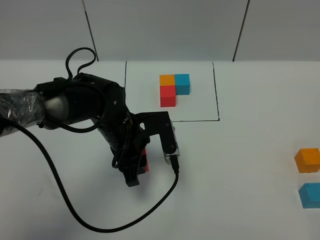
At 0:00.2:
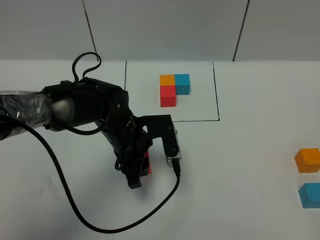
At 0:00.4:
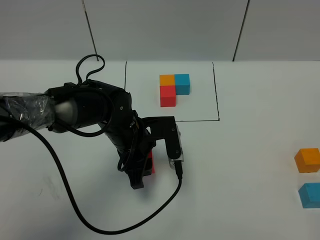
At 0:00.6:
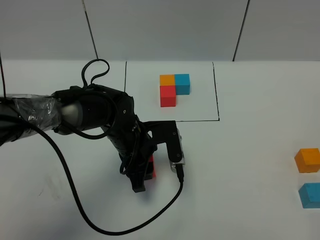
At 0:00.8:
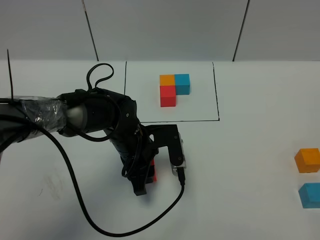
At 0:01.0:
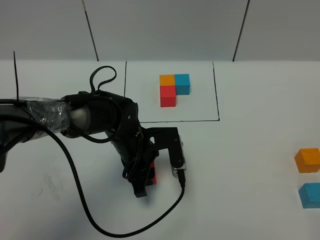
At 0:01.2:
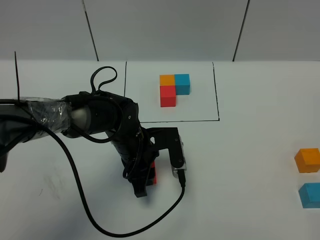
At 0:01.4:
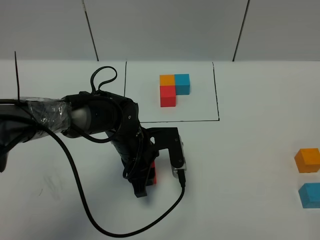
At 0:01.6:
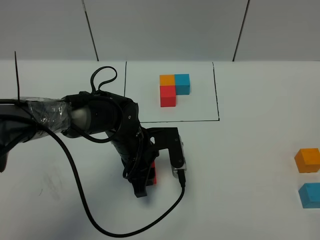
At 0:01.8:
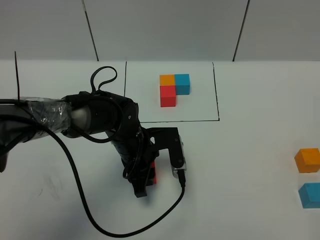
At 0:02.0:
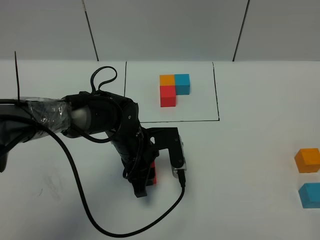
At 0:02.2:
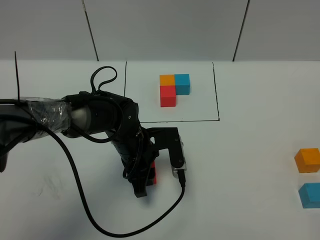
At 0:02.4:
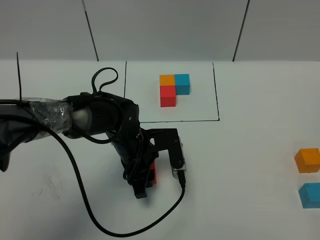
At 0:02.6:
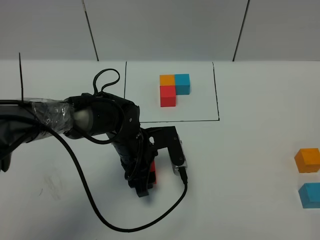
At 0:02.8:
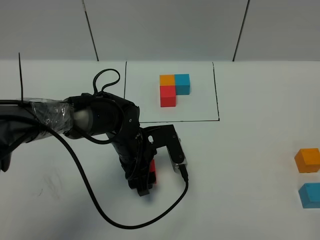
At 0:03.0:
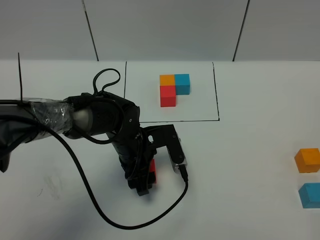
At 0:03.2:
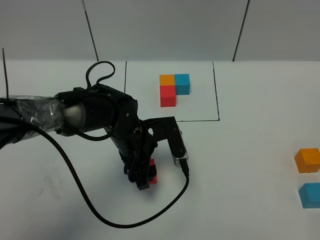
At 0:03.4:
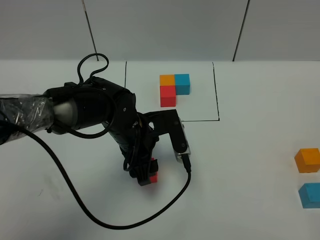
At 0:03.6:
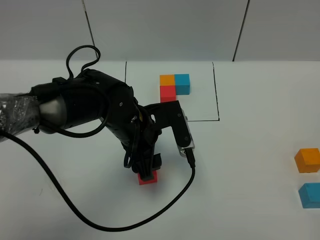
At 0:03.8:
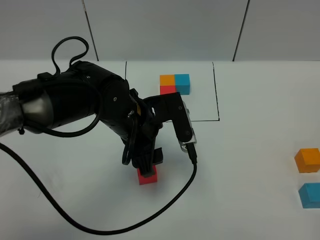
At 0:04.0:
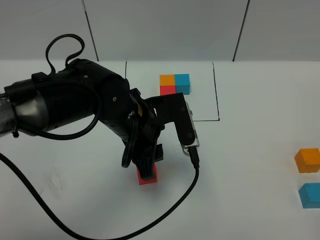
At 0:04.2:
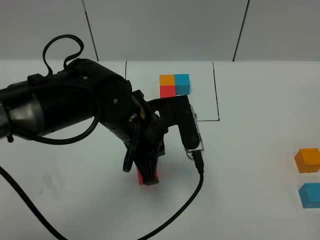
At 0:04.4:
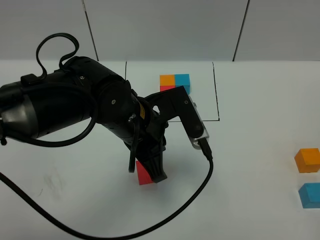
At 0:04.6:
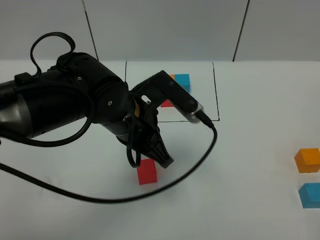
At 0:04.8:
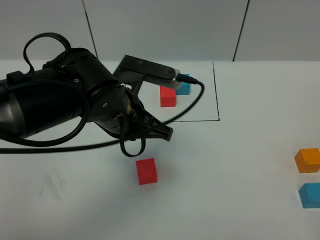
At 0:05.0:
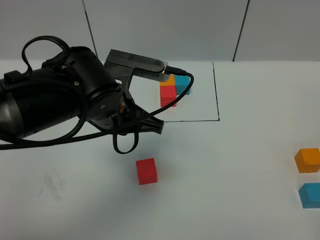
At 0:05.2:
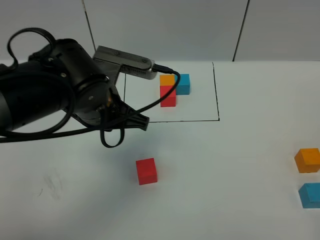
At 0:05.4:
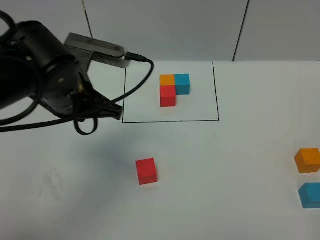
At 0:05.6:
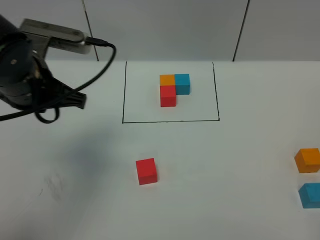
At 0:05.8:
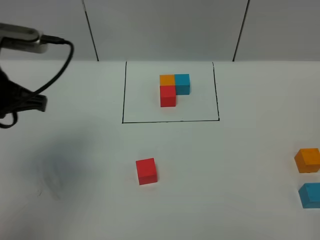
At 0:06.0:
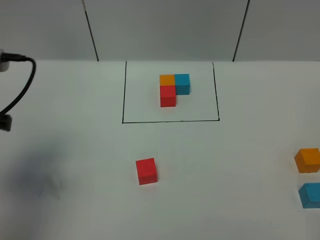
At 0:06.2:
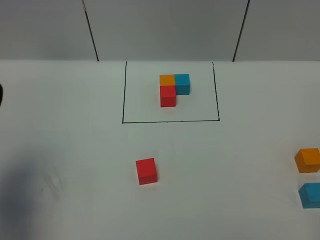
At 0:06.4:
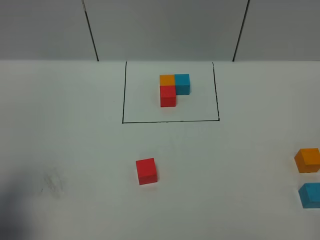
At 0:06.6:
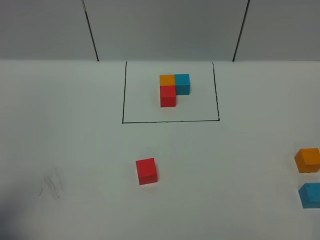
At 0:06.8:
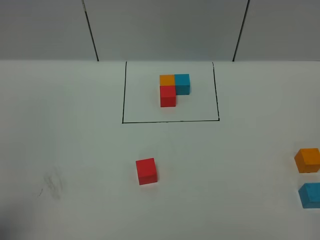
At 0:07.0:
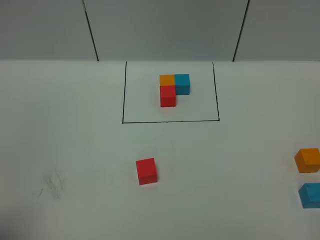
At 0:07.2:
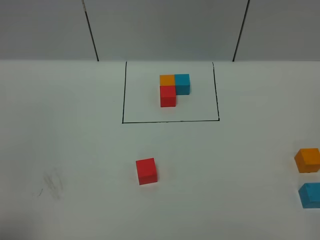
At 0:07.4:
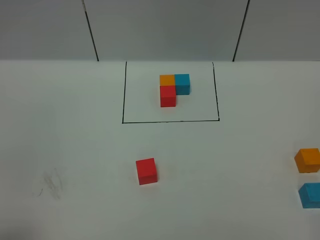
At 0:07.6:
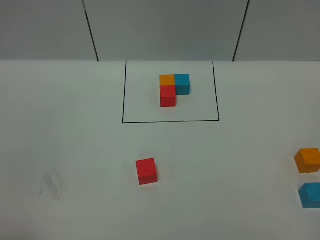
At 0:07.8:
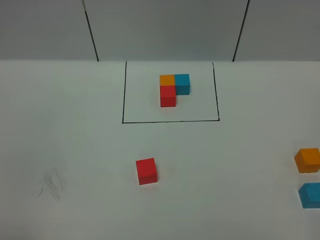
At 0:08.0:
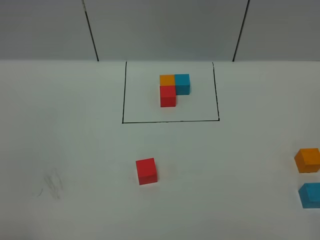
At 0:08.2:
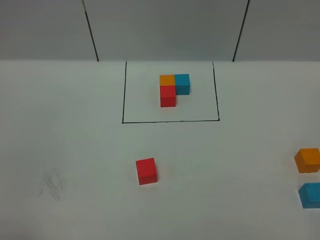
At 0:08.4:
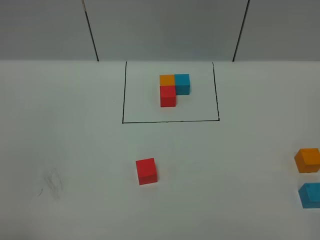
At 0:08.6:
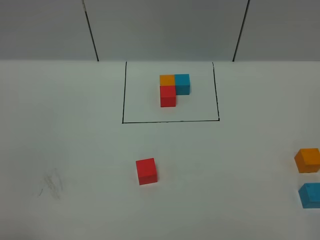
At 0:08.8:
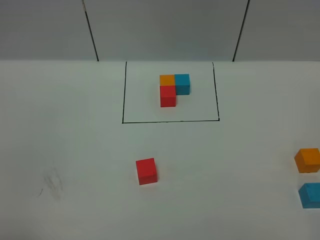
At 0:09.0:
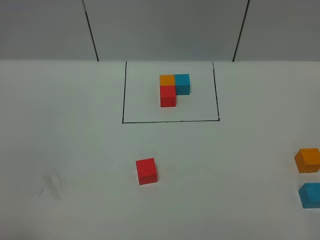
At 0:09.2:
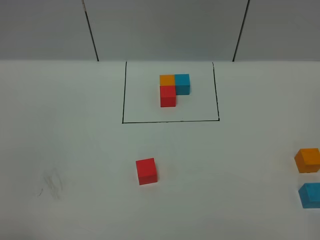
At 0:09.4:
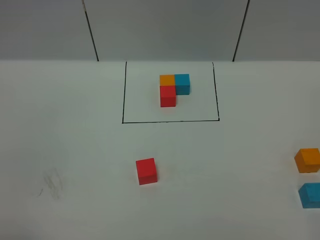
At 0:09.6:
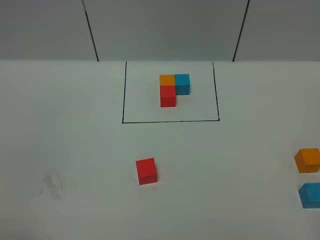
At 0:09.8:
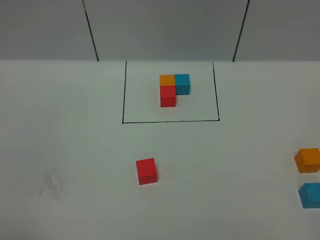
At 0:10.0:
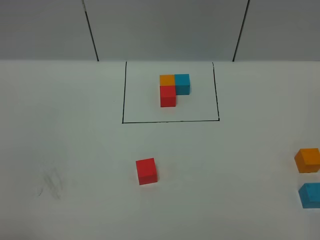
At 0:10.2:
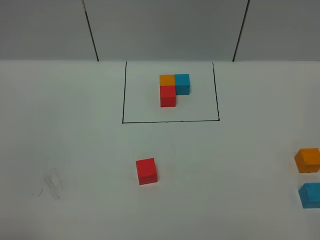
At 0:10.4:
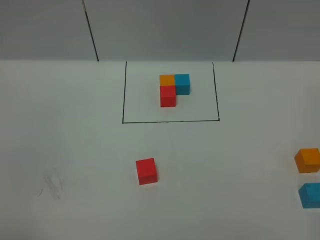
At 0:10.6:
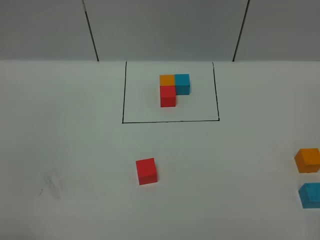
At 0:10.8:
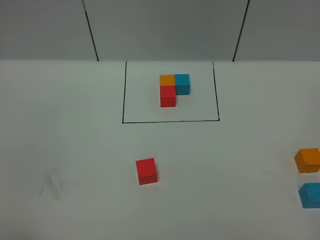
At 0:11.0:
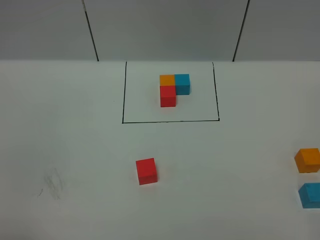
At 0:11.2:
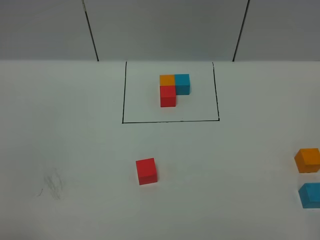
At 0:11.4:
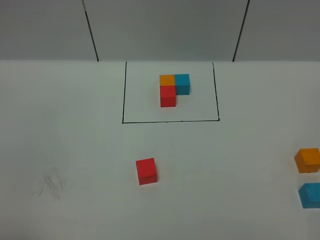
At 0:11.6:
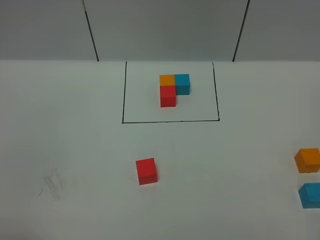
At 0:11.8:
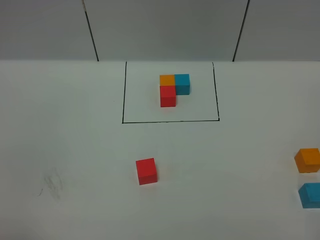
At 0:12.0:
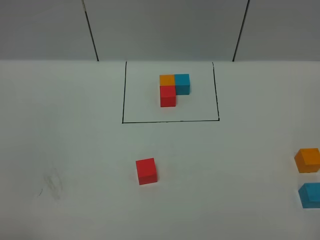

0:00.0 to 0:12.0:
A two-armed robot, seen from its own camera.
Task of the whole recording: According to the building block template in front, assemble the scattered blocks together.
Step, 0:00.0 to 0:03.6: Put the red cube in the center of the table.
0:00.0 to 0:03.0: The grippers stay close to where they were, moving slightly.
0:03.0 to 0:04.4: The left gripper is displaced upward by approximately 15 cm, and closes.
0:04.4 to 0:06.0: The left gripper heads to the left, covering about 25 cm.
0:06.0 to 0:07.6: The left gripper heads backward, covering roughly 20 cm.
0:09.0 to 0:10.4: Both grippers stay about where they are.

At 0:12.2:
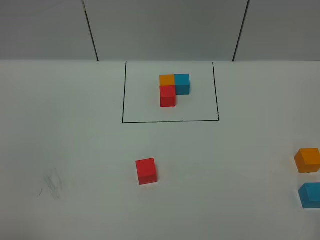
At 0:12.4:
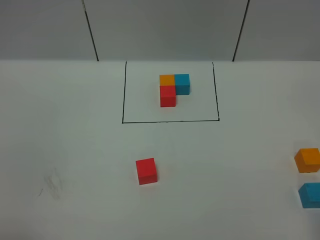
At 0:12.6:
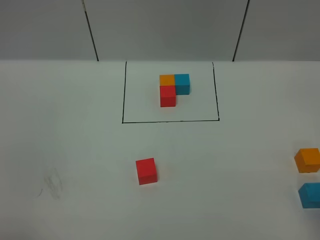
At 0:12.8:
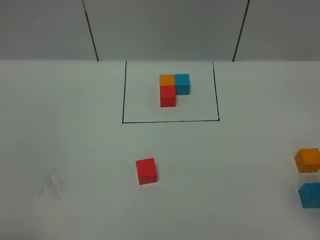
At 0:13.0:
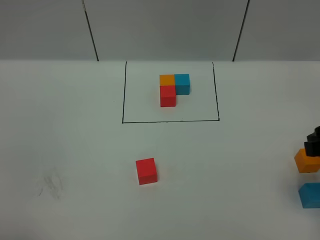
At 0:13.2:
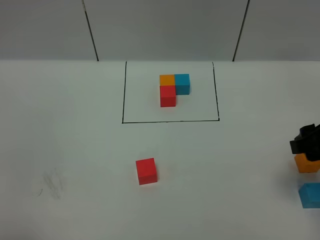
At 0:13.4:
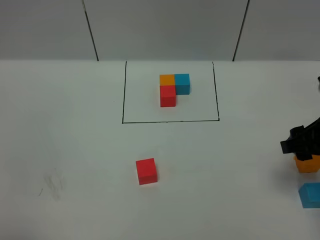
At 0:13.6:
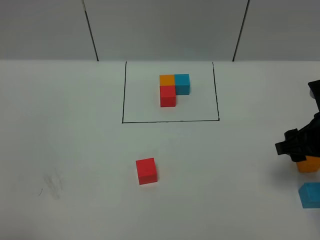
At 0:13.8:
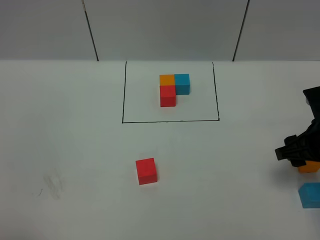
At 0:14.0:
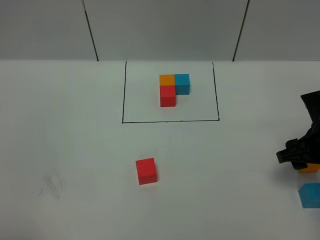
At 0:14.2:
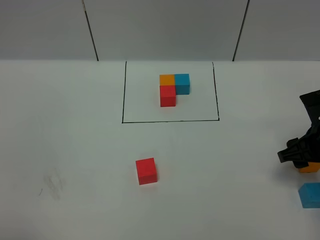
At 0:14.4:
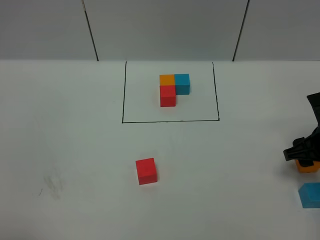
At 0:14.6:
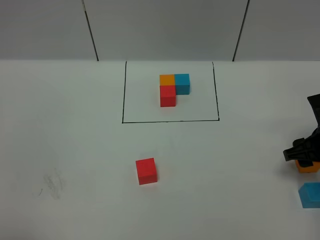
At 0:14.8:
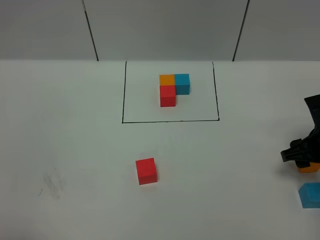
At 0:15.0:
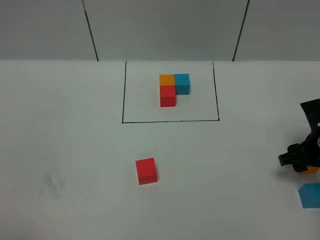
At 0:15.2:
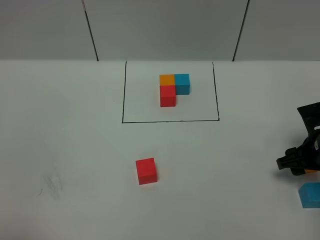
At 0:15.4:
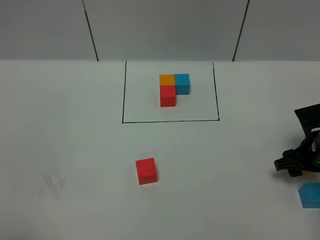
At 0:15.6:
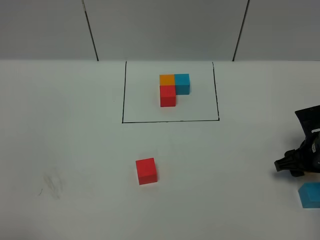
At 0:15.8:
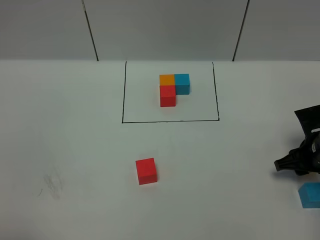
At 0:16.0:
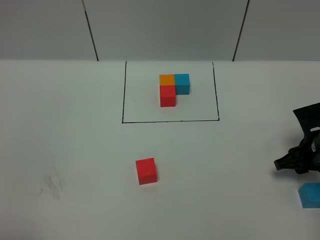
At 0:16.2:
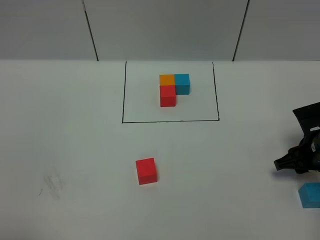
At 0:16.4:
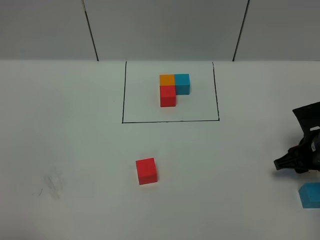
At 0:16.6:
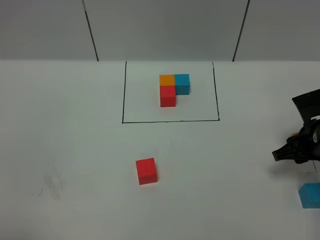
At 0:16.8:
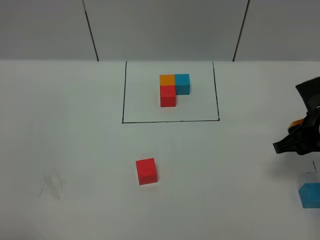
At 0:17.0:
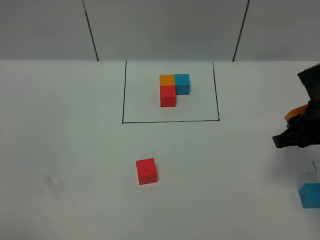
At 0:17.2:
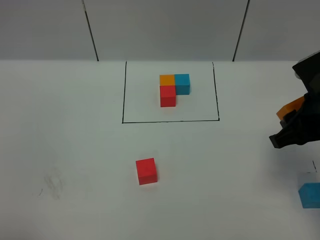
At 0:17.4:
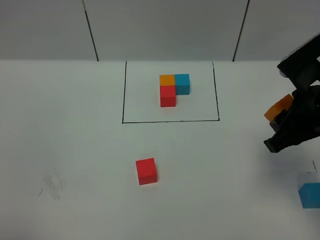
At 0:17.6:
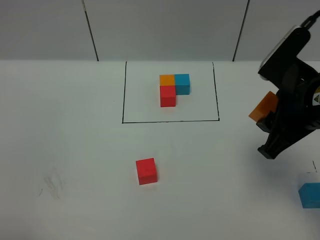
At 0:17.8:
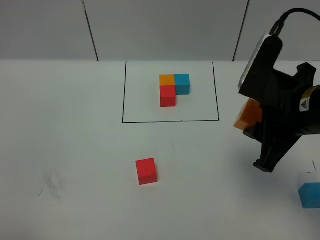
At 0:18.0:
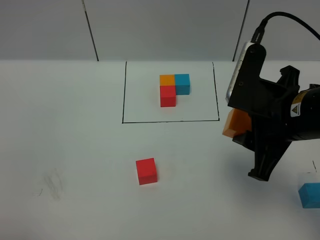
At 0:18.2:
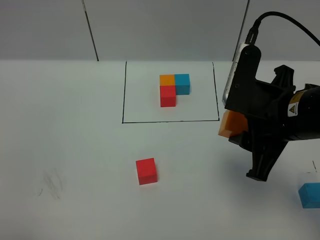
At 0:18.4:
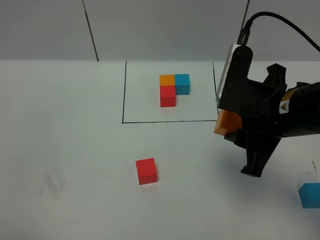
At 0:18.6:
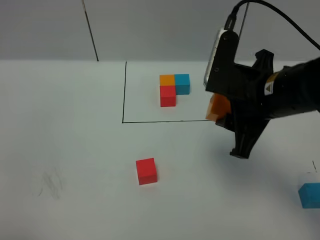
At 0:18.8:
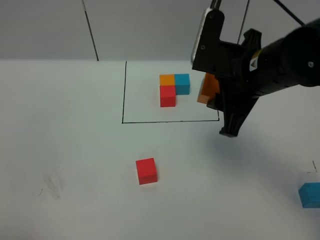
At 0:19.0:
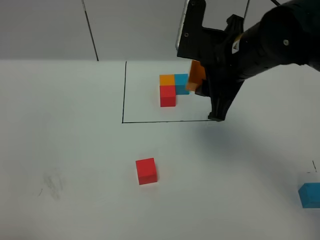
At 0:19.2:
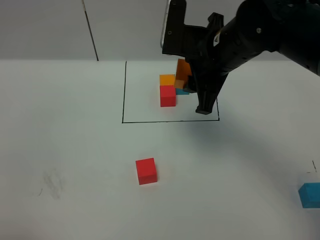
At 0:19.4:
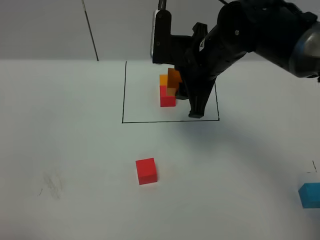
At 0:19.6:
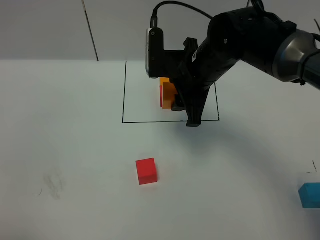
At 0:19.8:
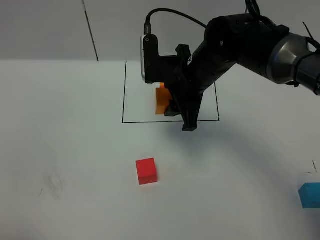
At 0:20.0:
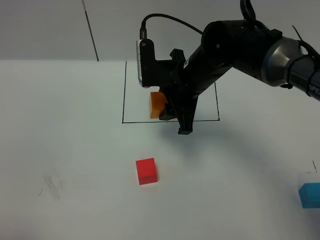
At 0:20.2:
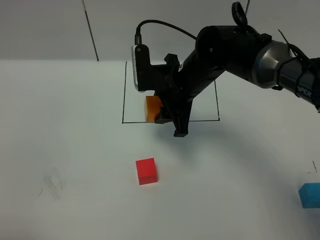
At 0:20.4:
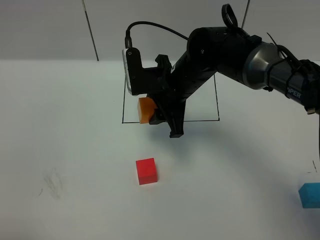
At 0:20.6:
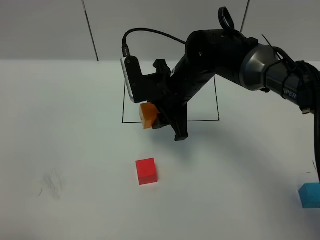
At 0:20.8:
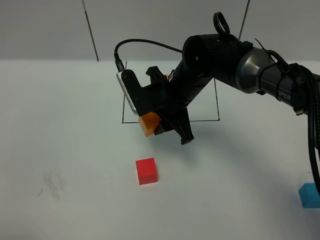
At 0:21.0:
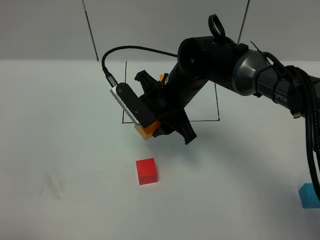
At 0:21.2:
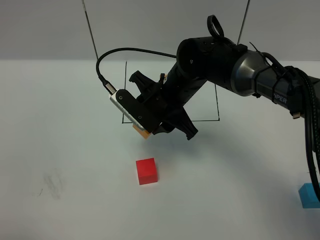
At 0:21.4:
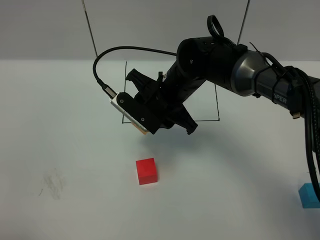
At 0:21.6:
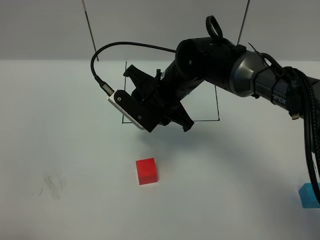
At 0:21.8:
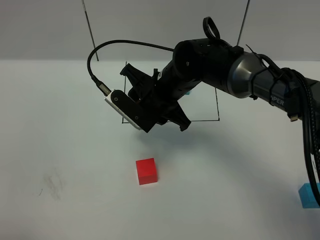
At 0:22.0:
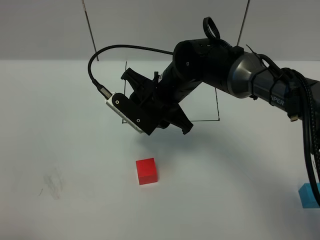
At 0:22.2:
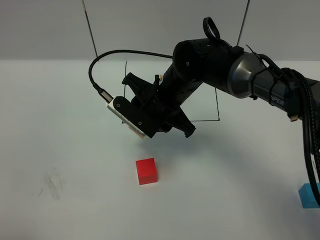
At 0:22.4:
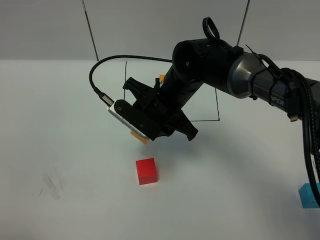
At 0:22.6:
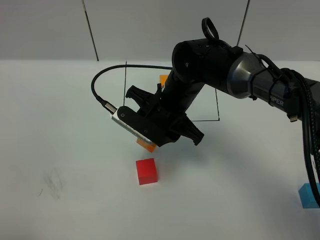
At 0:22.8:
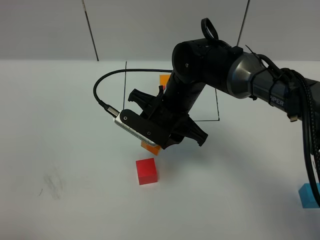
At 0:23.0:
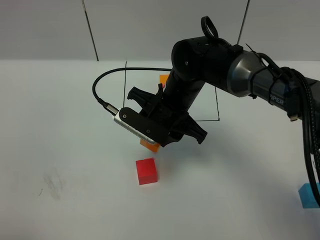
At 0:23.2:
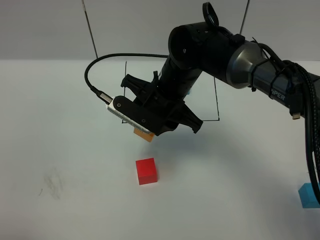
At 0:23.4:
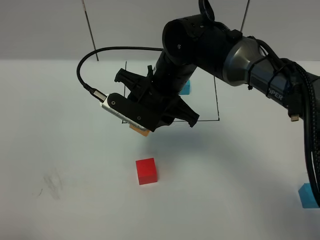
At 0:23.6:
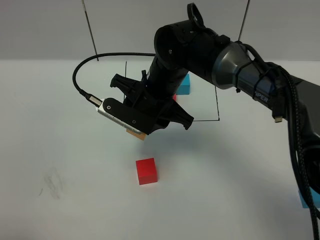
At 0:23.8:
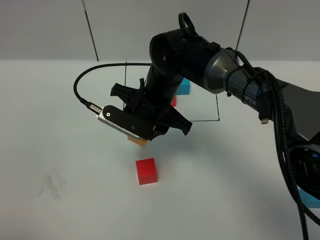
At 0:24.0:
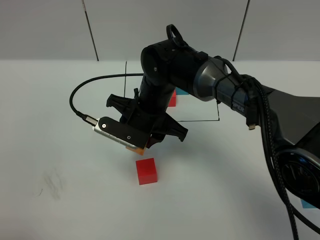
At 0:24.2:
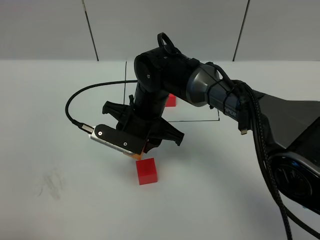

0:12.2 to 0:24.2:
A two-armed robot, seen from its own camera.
Task of the whole recording: According to the building block template in front, assemble the scattered blocks together.
0:12.2 to 0:13.8: The right gripper shifts some 25 cm forward and downward.
0:13.8 to 0:15.2: The right gripper heads downward, covering roughly 5 cm.
0:15.2 to 0:16.6: There are only small adjustments of the grippers.
0:16.6 to 0:18.2: The right gripper goes about 20 cm upward, to the left and backward.
0:18.2 to 0:19.8: The right gripper heads forward and to the left, covering about 20 cm.
0:19.8 to 0:21.2: The right gripper changes place by approximately 5 cm.
0:21.2 to 0:22.6: The grippers make only small movements.
0:22.6 to 0:24.2: The right gripper is displaced to the left by about 5 cm.
